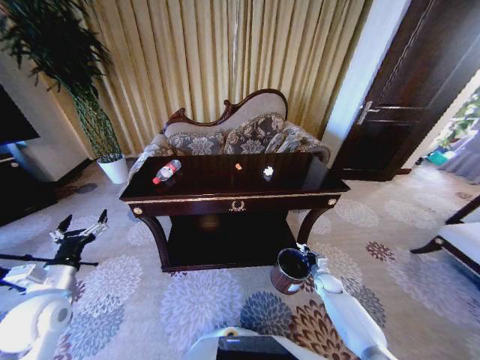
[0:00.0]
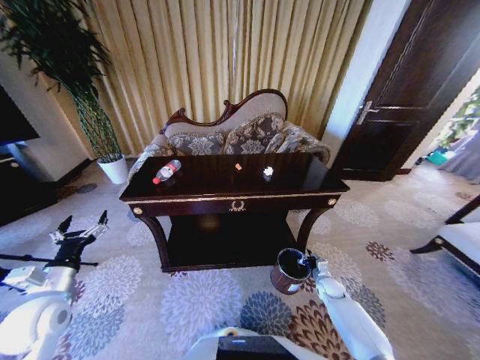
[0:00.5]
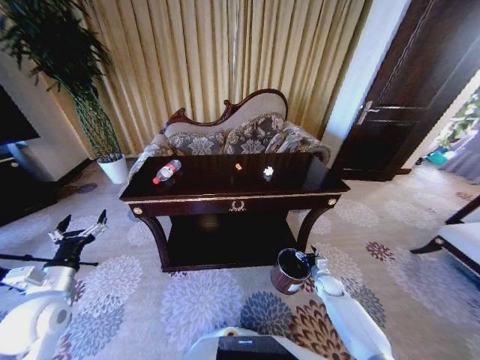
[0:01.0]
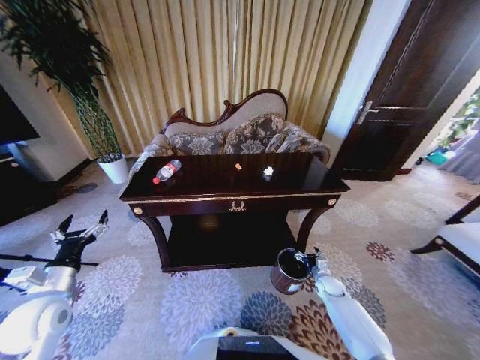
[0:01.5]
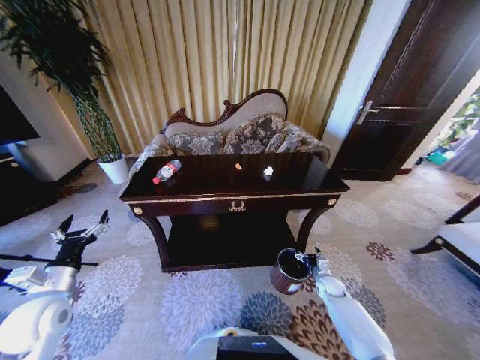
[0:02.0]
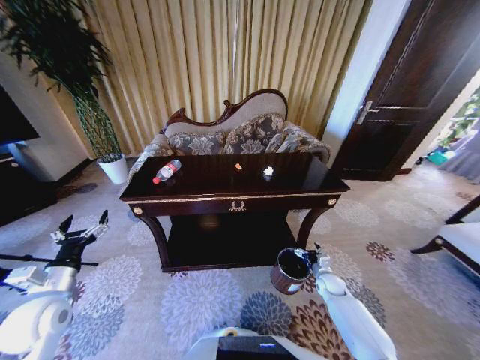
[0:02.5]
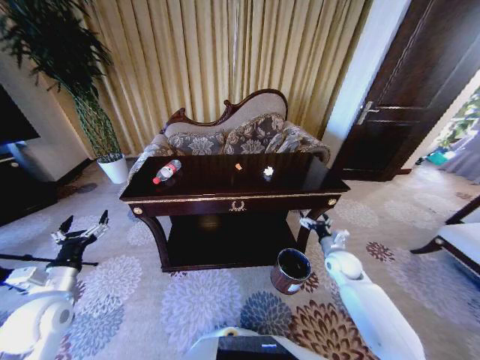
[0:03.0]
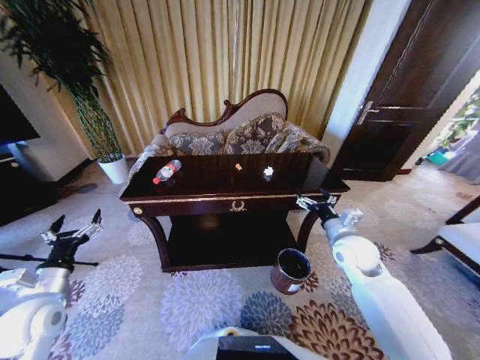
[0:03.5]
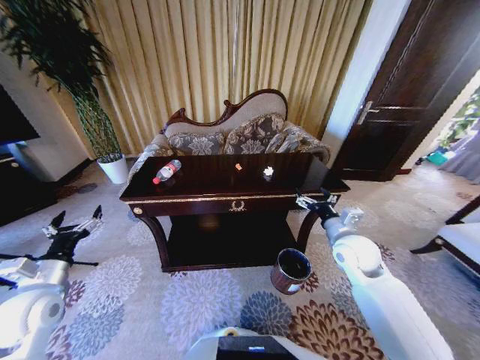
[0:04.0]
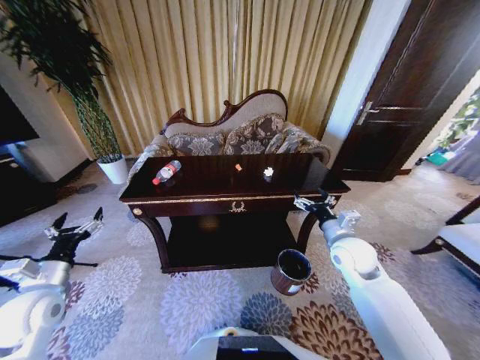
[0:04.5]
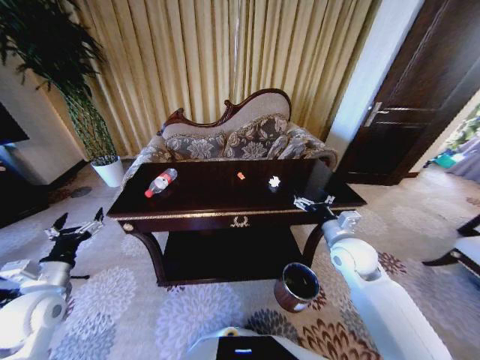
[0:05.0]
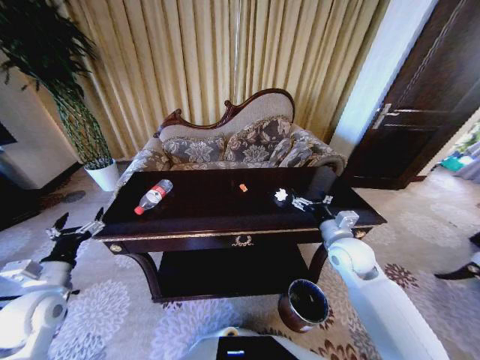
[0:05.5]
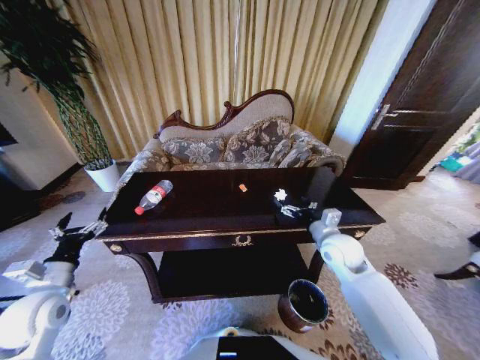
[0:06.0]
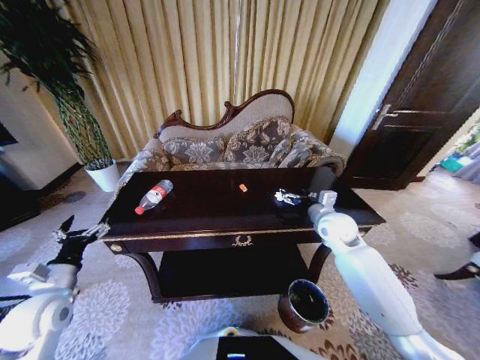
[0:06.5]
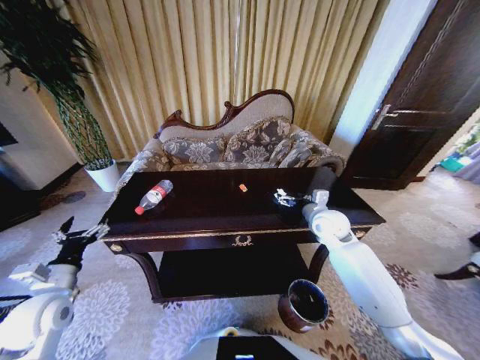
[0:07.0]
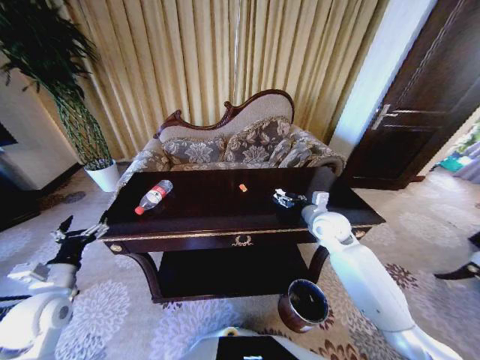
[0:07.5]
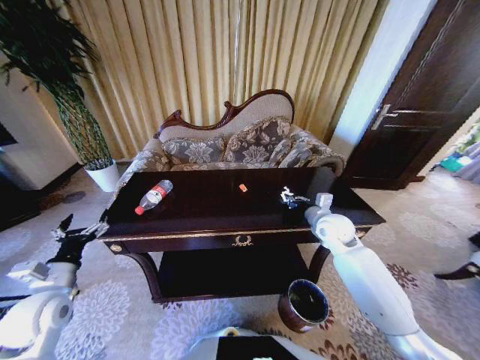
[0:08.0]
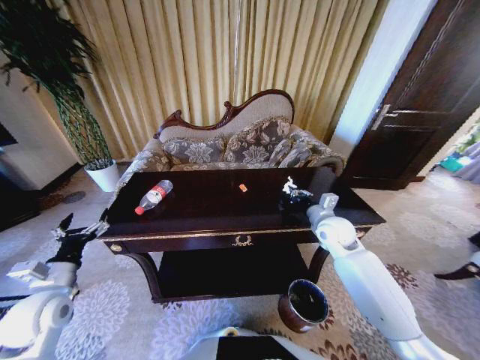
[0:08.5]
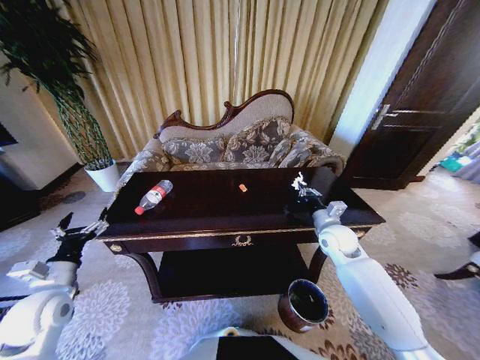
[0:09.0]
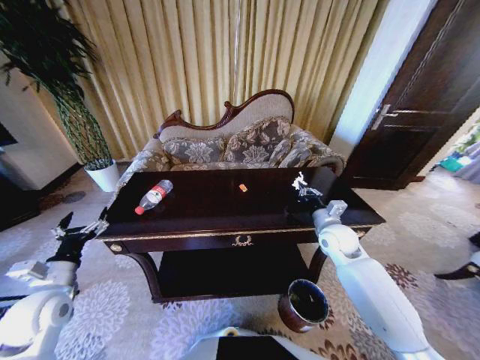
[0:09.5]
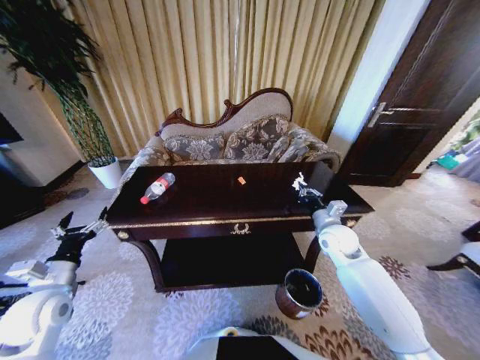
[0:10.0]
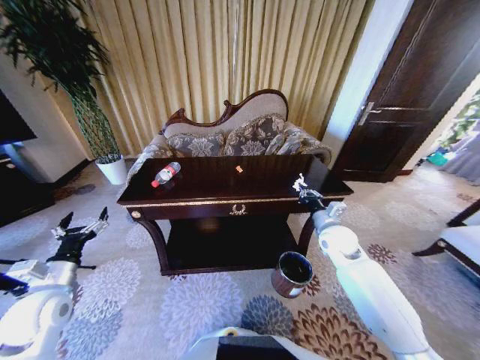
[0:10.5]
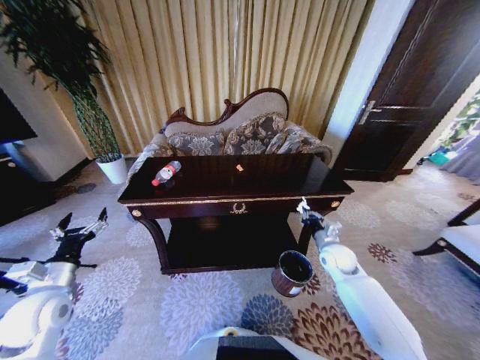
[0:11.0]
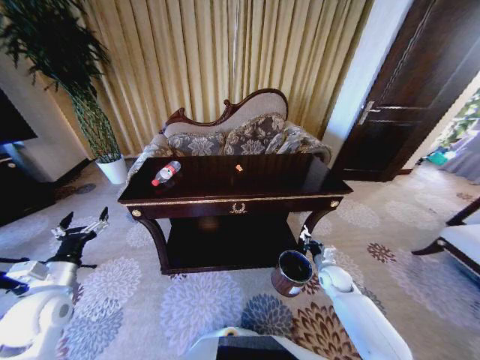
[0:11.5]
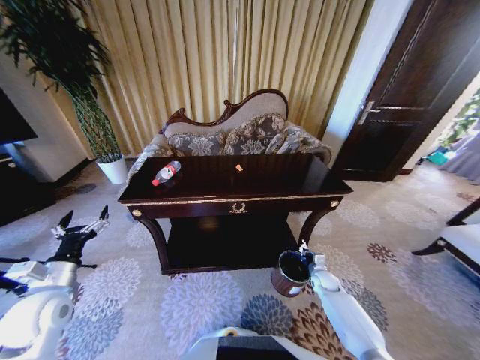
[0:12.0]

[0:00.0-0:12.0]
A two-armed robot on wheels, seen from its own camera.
Task of the whole recording: Move to the front of the table and place the trash on the table into the trash bin.
0:00.0 to 0:02.0: The right gripper opens its fingers.
0:02.0 to 0:04.0: The right gripper goes some 30 cm upward.
0:06.0 to 0:08.0: The right gripper travels forward by approximately 5 cm, and closes its fingers.
0:10.0 to 0:12.0: The right gripper travels downward by roughly 25 cm.

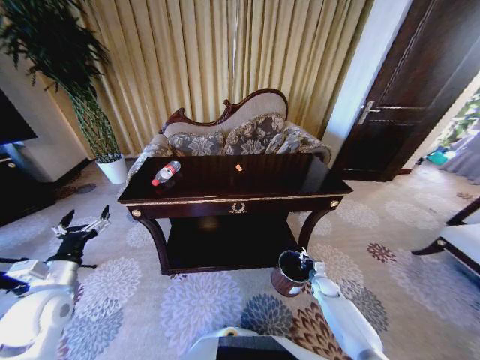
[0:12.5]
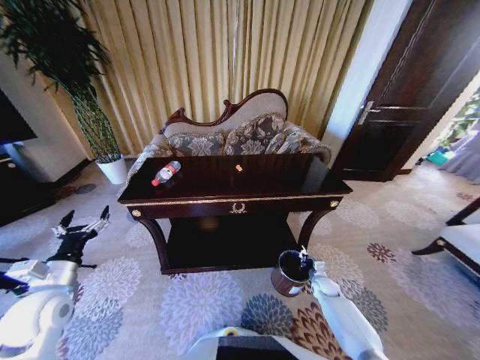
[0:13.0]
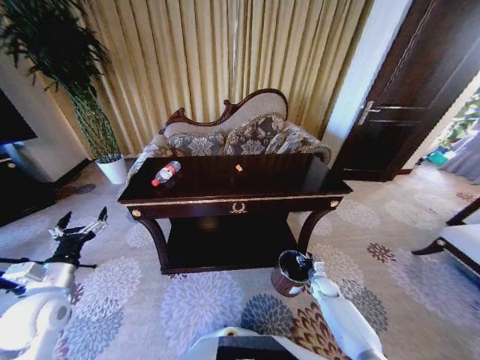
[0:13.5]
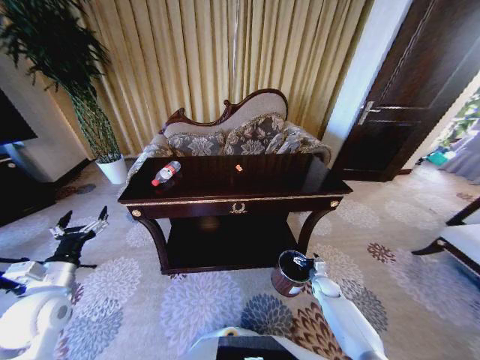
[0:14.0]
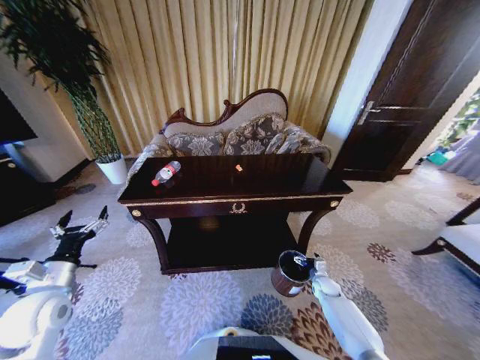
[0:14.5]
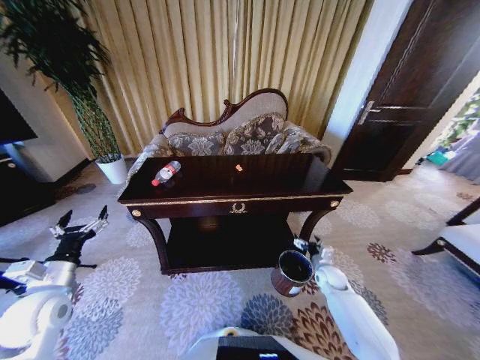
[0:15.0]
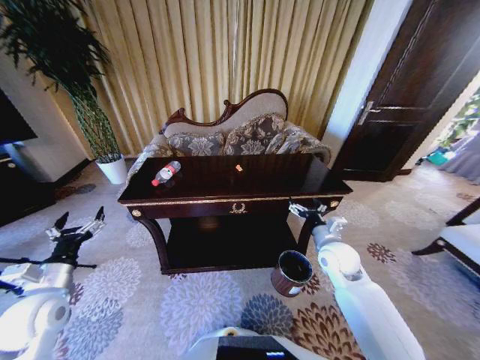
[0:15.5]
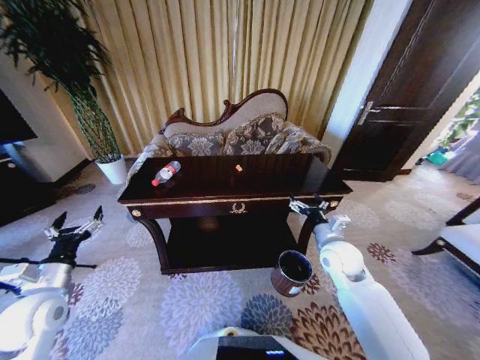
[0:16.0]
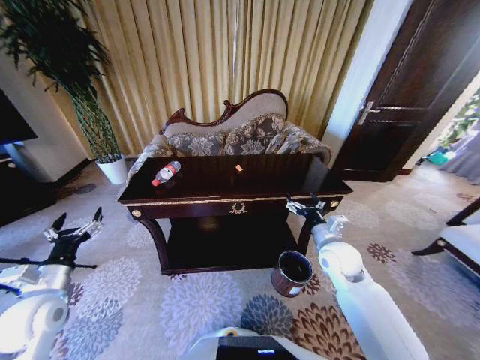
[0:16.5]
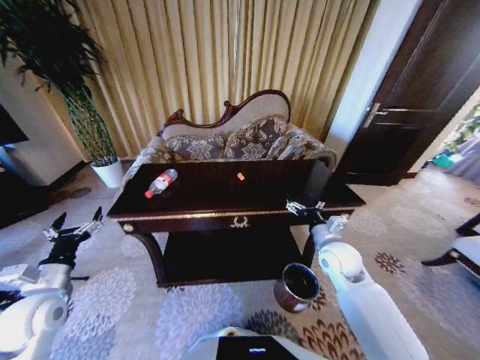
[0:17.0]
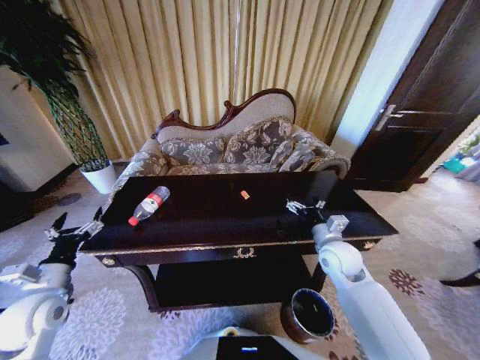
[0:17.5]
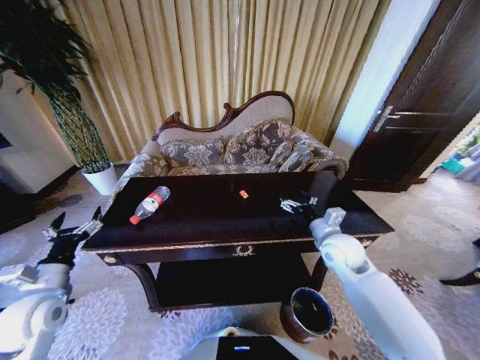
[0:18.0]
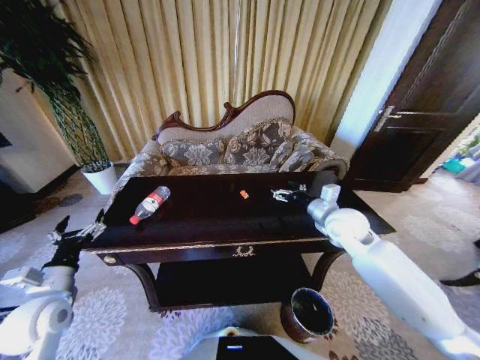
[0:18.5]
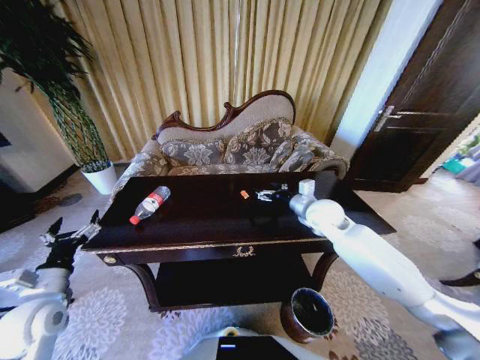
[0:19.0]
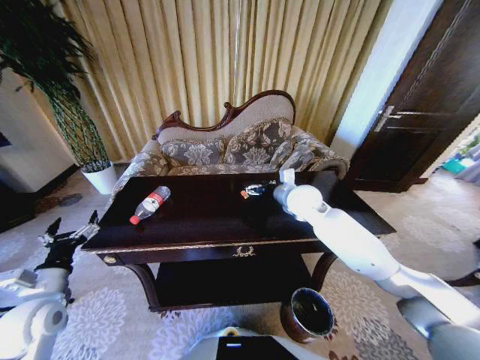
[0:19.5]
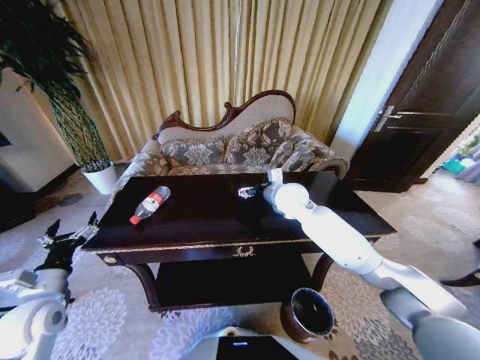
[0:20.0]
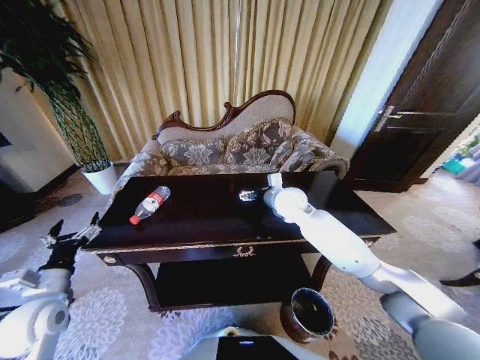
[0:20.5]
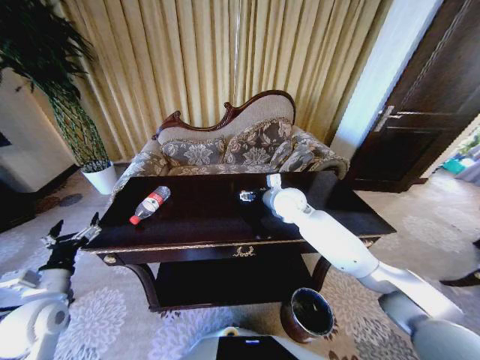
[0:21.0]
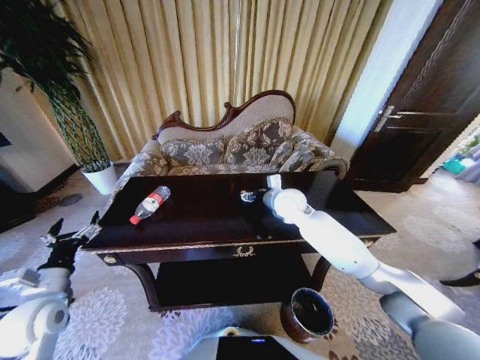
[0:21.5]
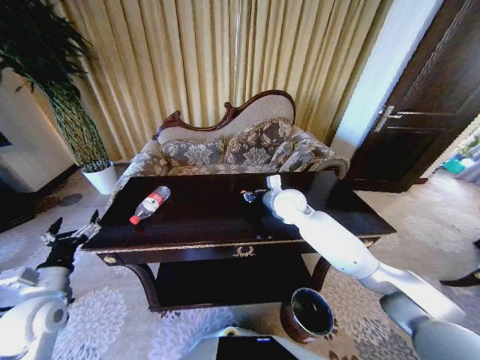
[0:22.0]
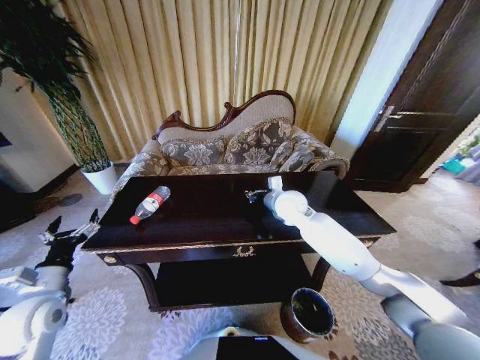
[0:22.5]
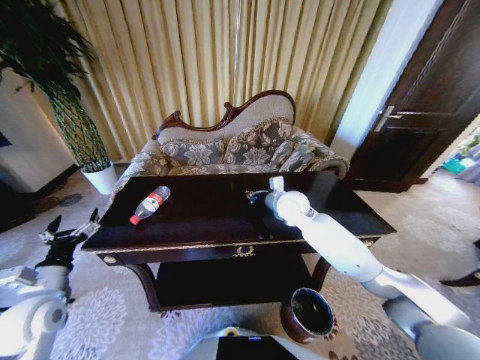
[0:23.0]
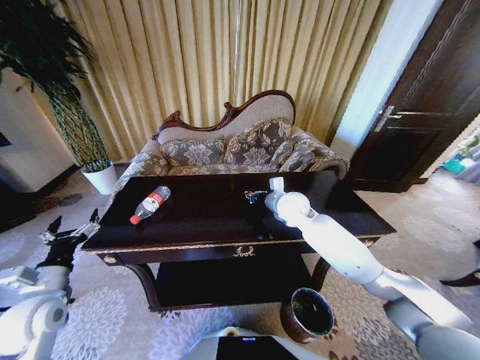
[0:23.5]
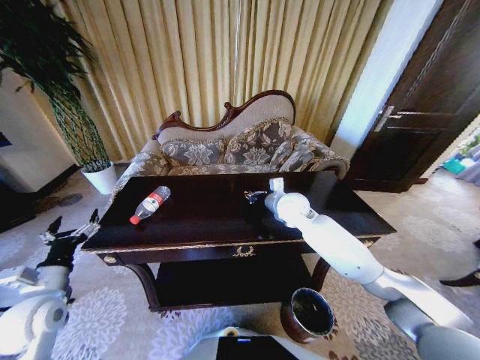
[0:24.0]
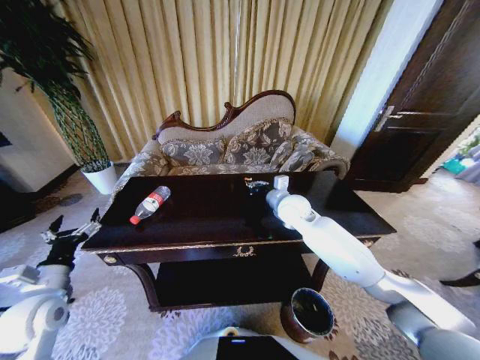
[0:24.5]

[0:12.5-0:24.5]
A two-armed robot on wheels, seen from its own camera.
Task of the whole recording: Move to the front of the table and place the trash on the table into the trash bin.
0:14.5 to 0:16.5: The right gripper moves upward, some 30 cm.
0:16.5 to 0:18.5: The right gripper moves upward and forward, approximately 10 cm.
0:18.5 to 0:20.5: The right gripper heads to the left and forward, covering some 15 cm.
0:20.5 to 0:22.5: The right gripper closes up.
0:22.5 to 0:24.5: There are only small adjustments of the grippers.

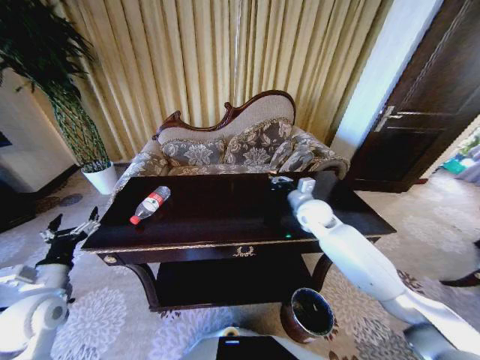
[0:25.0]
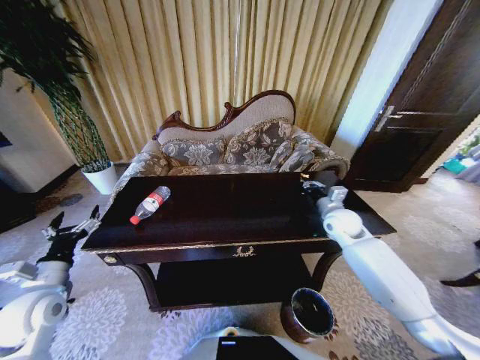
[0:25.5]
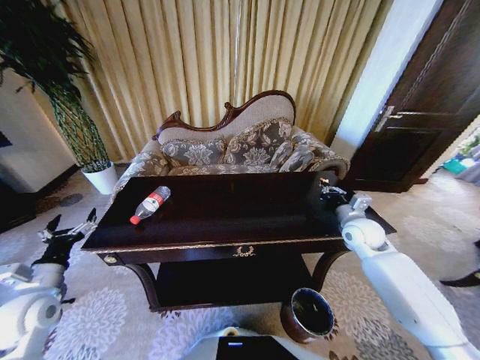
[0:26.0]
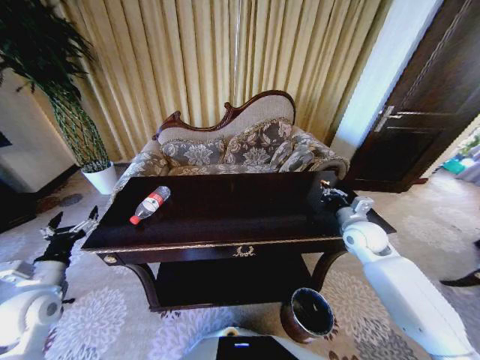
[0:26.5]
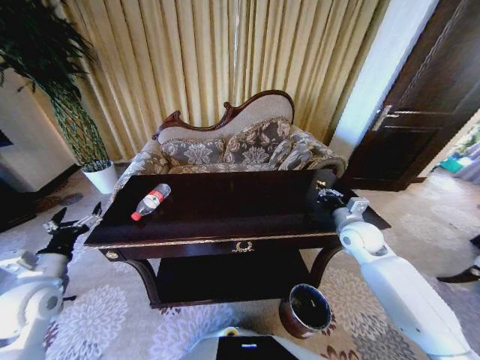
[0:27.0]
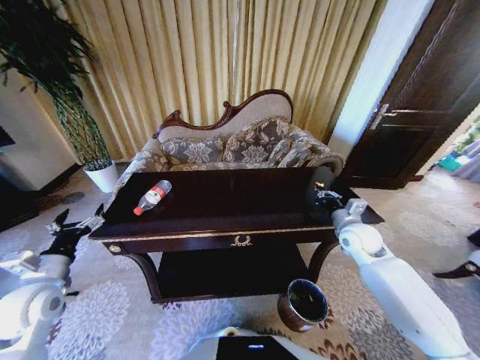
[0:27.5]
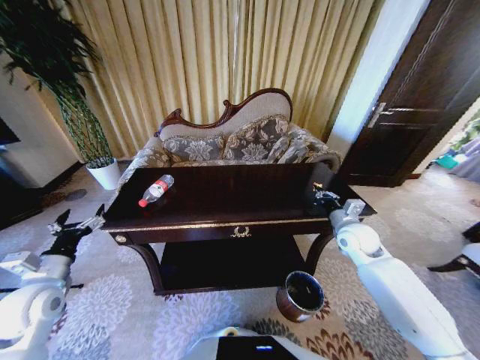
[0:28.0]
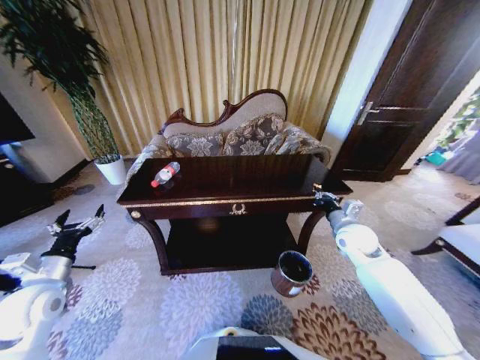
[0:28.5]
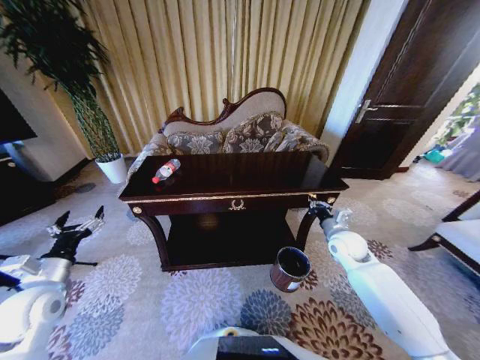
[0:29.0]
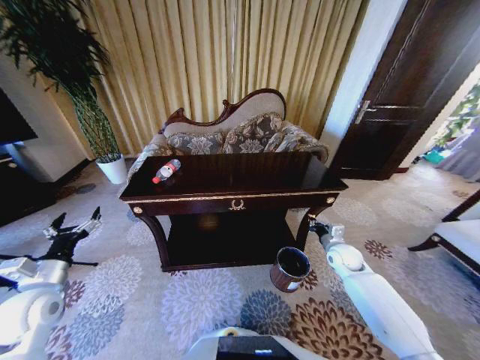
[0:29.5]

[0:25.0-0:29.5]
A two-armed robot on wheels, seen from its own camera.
Task of the whole recording: Move to the front of the table and place the trash on the table into the trash bin.
0:25.0 to 0:27.0: The right gripper is displaced to the right and backward by roughly 15 cm.
0:27.0 to 0:29.5: The right gripper is displaced downward by roughly 10 cm.
